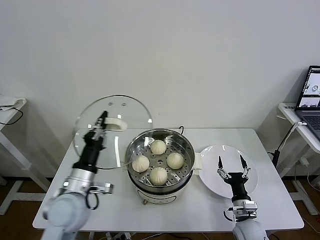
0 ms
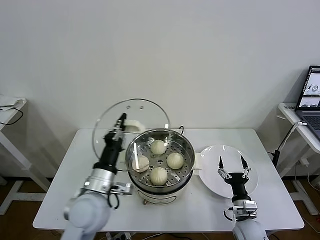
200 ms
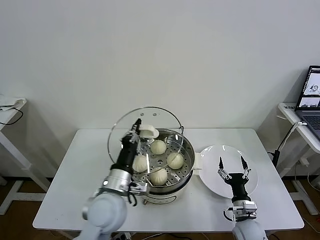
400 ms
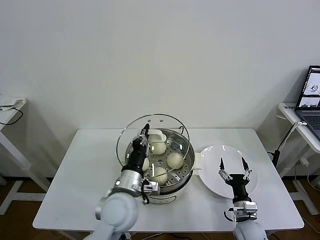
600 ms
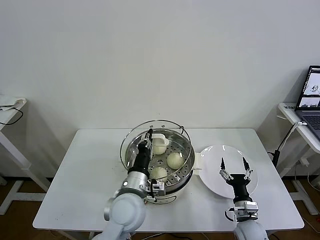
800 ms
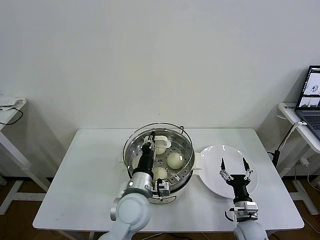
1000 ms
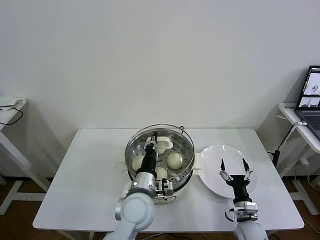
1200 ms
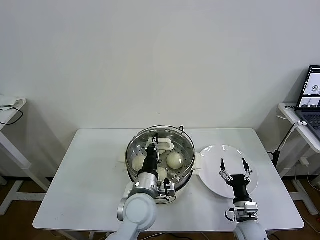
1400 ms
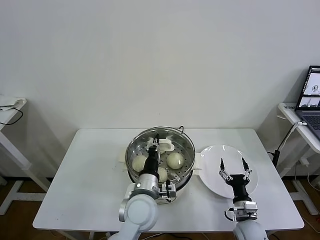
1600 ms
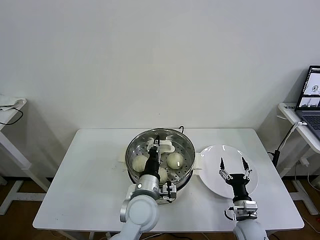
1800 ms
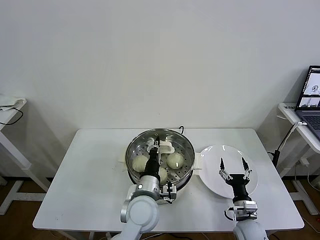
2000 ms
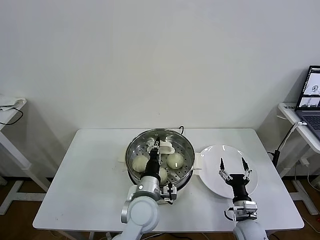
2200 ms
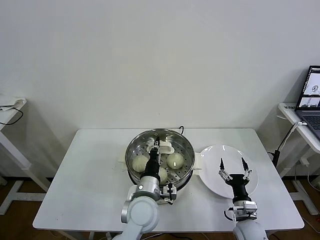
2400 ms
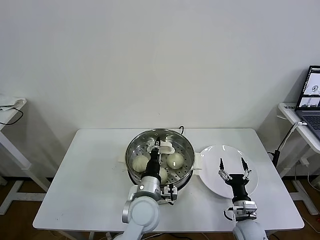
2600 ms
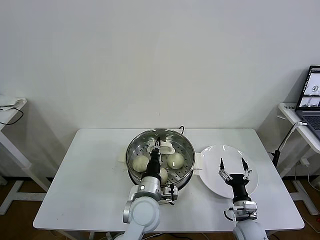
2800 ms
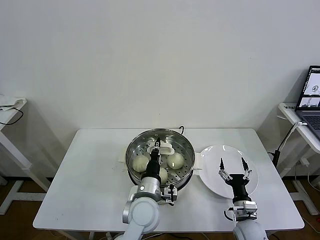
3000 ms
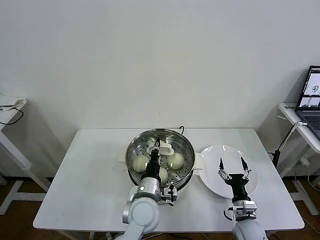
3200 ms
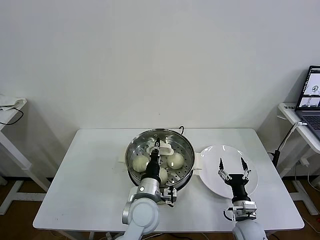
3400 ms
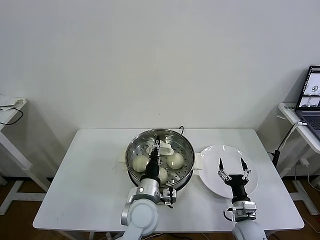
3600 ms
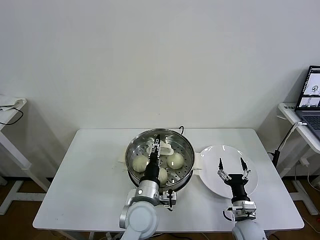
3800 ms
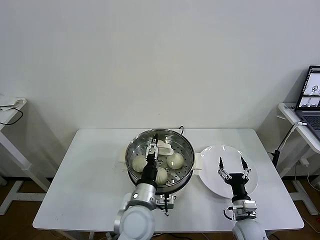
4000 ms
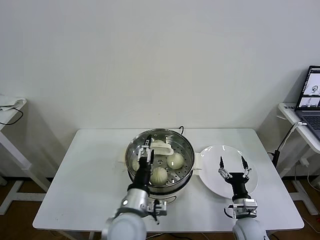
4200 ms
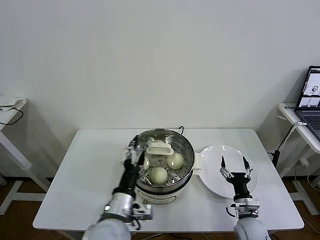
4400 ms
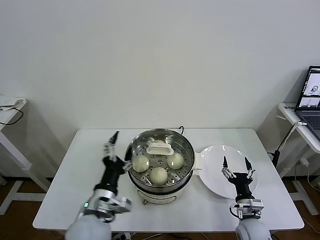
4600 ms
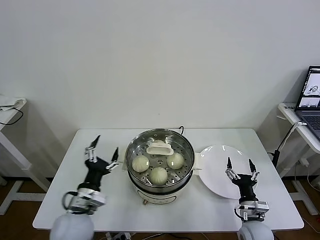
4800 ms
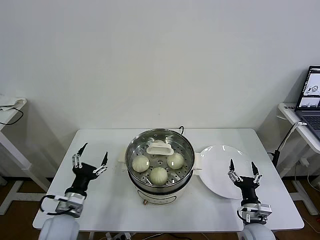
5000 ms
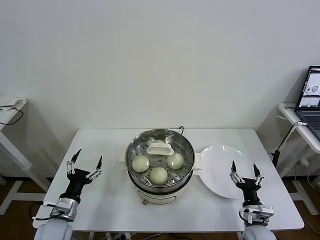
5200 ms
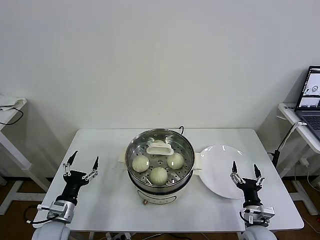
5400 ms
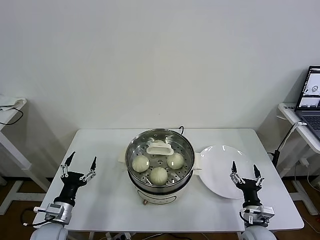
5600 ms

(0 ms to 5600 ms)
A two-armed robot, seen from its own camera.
Task of the whole recording: take steamed baozi put them in steamer then cover it.
Step, 0 ms - 3600 ms: Place the pot lid on the steamer with left gripper.
0 ms - 1400 ms: The left gripper is displaced to the right by some 20 cm.
1400 ms - 2800 ms: There are only small adjustments of the grippers.
2800 ms - 4200 ms: The left gripper changes place by approximately 5 cm, and opens its fingers.
4200 ms - 5600 ms: The left gripper shifts about 25 cm to the left.

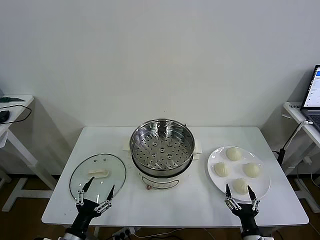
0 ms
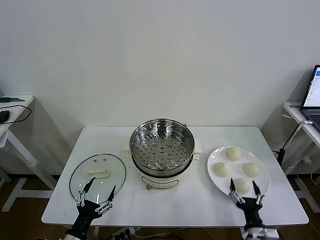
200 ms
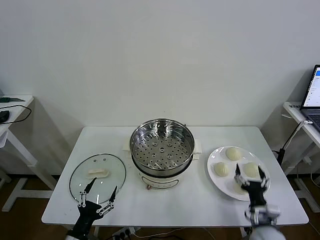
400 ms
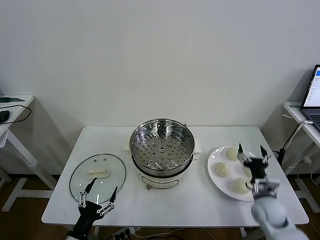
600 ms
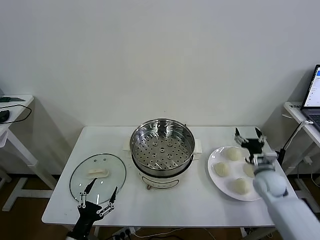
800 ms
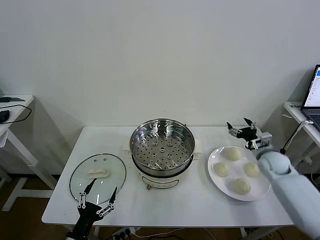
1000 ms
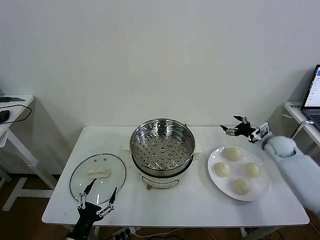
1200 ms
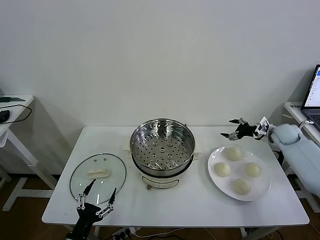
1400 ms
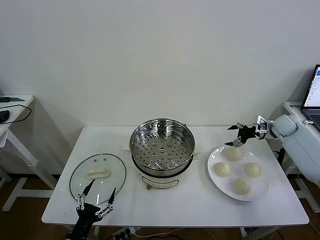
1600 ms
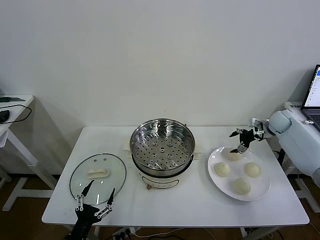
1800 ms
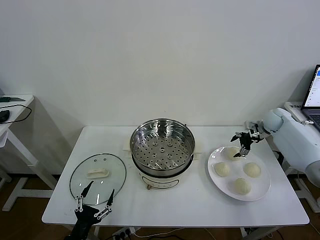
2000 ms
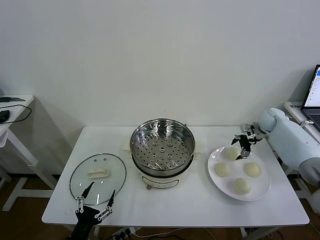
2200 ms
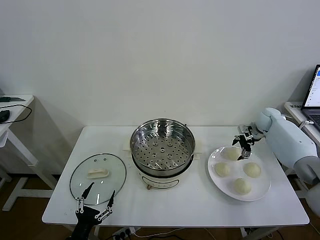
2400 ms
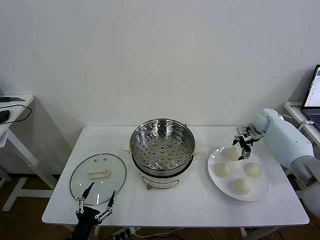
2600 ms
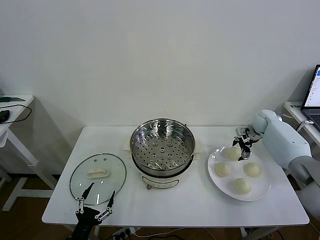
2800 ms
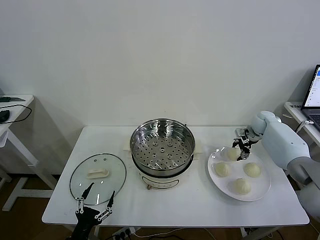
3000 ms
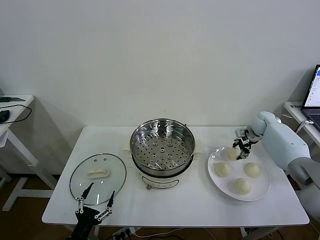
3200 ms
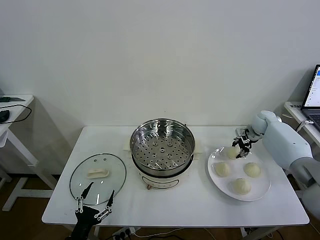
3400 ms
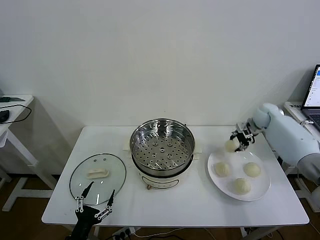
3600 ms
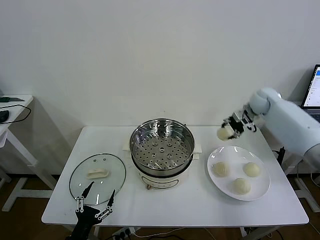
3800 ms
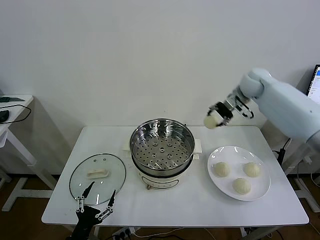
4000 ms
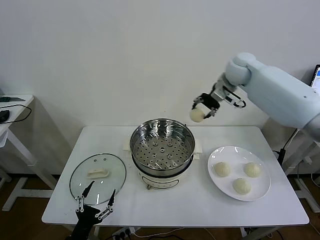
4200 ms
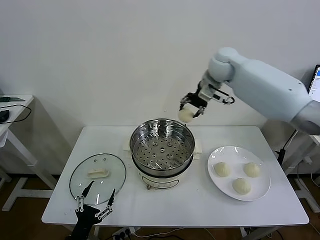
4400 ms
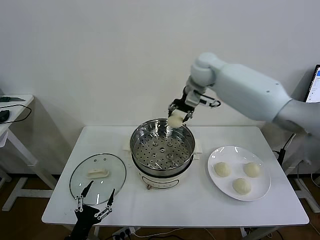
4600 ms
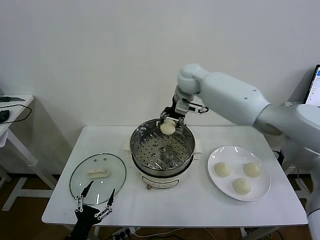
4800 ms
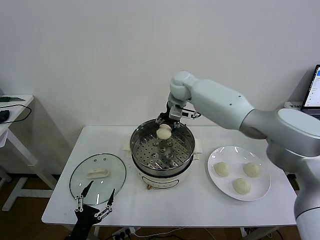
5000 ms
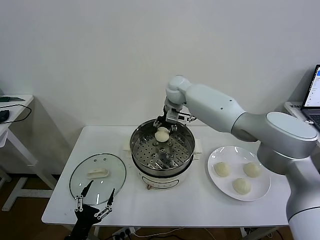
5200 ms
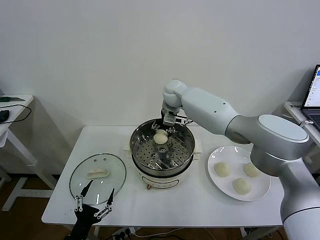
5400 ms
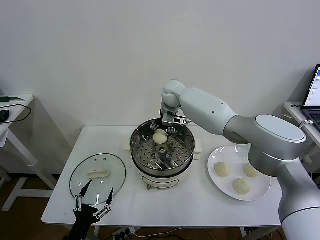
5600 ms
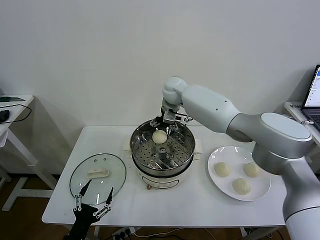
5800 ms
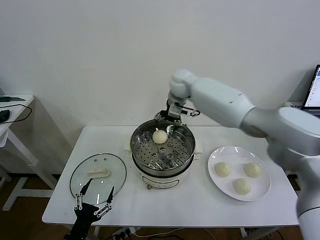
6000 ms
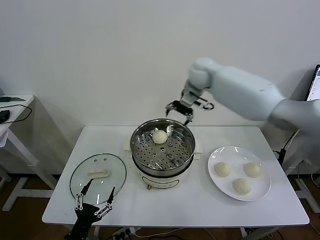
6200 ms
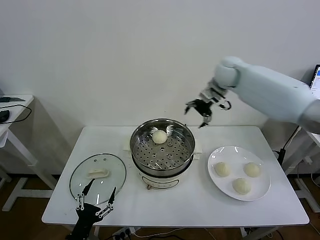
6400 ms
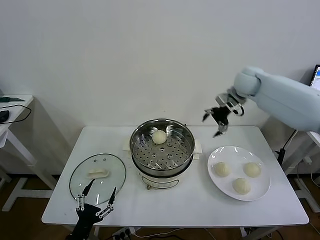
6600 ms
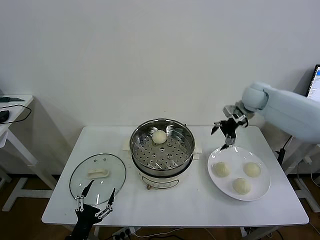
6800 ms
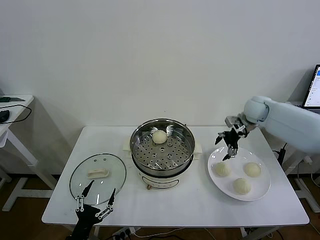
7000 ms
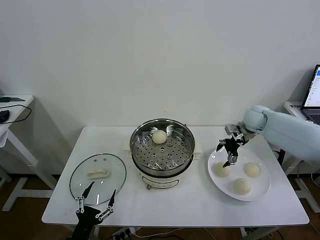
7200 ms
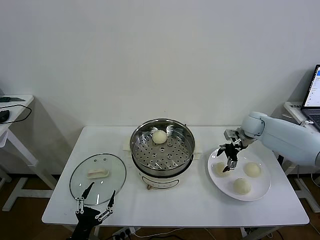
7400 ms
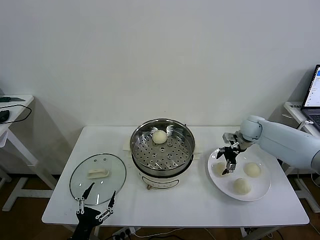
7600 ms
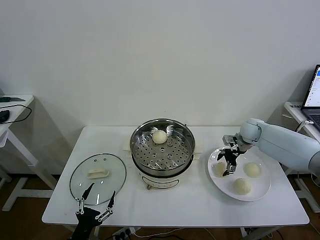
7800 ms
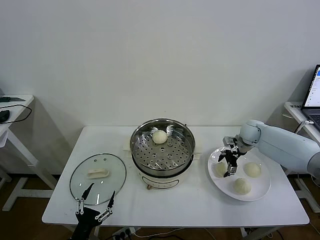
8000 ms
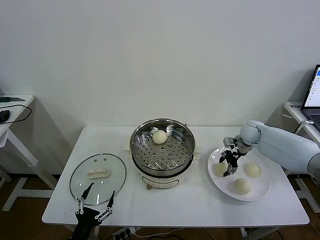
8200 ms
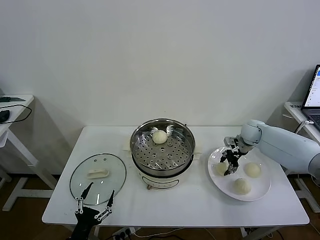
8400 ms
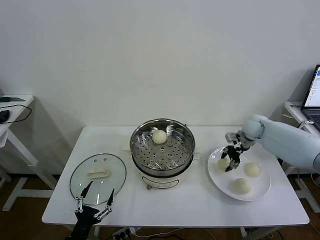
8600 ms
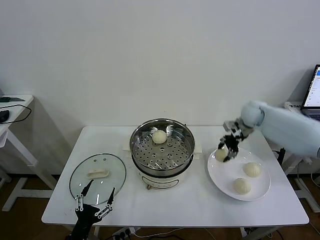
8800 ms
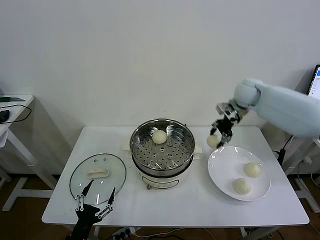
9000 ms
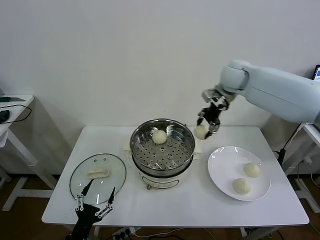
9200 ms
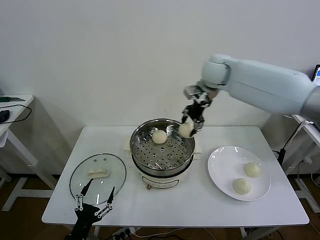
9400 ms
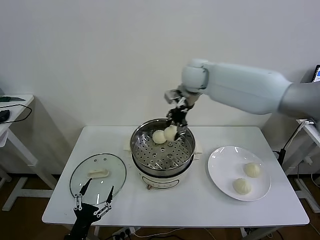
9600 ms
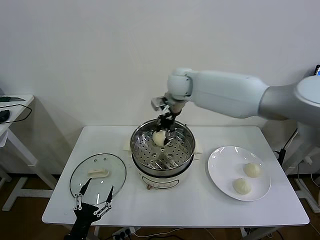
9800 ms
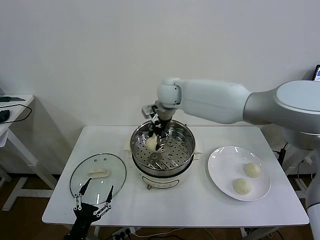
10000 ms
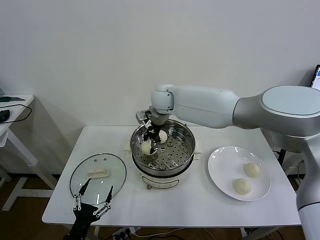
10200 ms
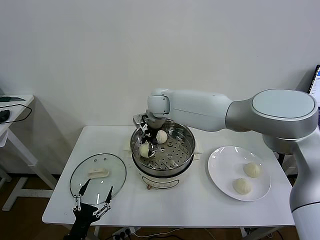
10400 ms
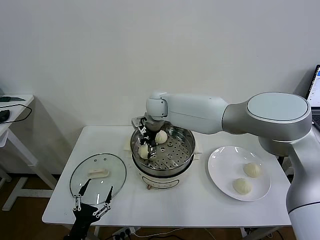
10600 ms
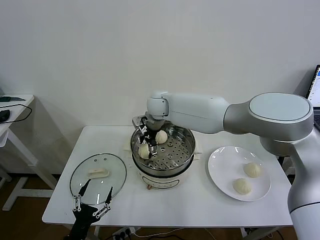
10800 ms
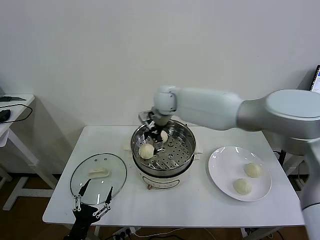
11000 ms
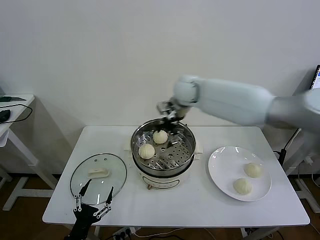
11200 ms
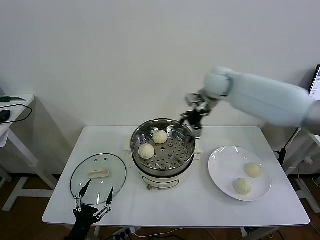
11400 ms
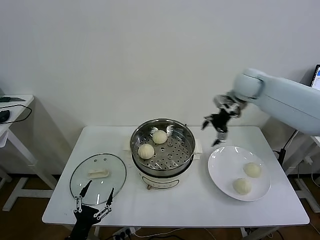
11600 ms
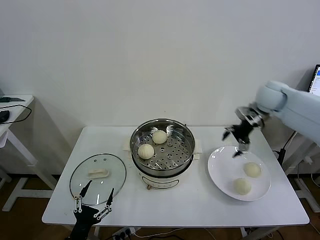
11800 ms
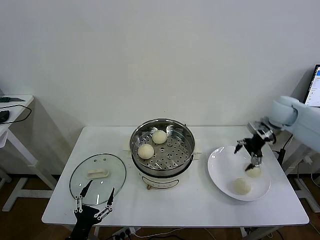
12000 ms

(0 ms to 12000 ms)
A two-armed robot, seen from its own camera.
Task of the whole recording: take steamed baozi put them in steamer then cover it.
Step, 0 ms - 3000 ms: Grasp the baozi in the plate with right gripper.
Step, 3200 ms - 5600 ms: Place the baozi on the steamer with right gripper.
Step, 5800 ms - 8200 ms: Grasp the baozi in the plate with right gripper.
Step, 8400 ms - 10800 ms: Place the baozi on the steamer with right gripper.
1600 ms - 3000 ms: The right gripper moves to the left, some 5 cm, and closes up.
3000 ms - 4400 ms: The right gripper shifts some 35 cm to the left and upward.
4400 ms - 6000 ms: The right gripper opens.
6000 ms - 7600 ms: The right gripper travels to the right and downward by roughly 30 cm.
7600 ms - 9000 ms: The right gripper moves upward and to the left, roughly 20 cm, and closes its fingers.
9000 ms - 10400 ms: The right gripper travels to the left by about 30 cm.
10400 ms - 12000 ms: The right gripper heads to the right, covering some 40 cm, and opens.

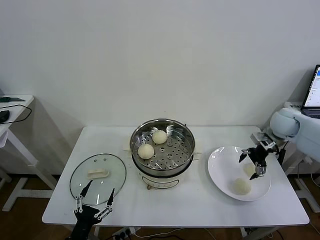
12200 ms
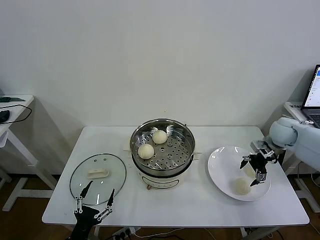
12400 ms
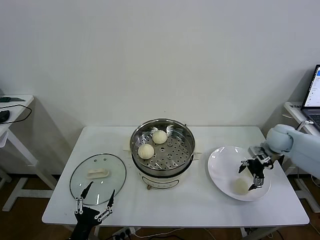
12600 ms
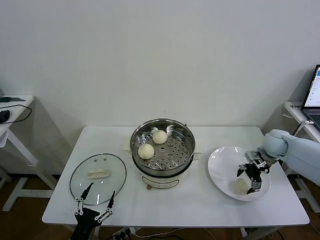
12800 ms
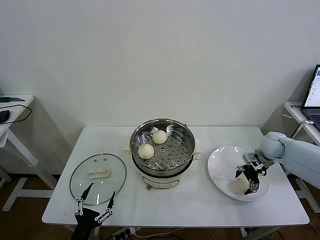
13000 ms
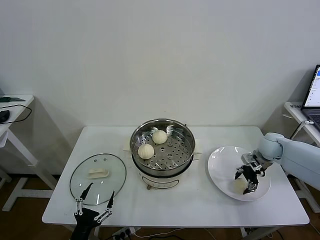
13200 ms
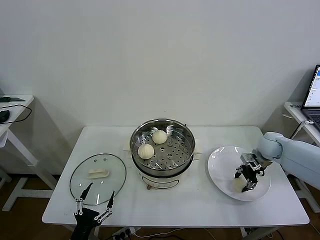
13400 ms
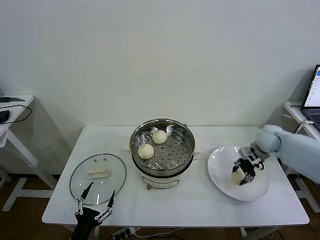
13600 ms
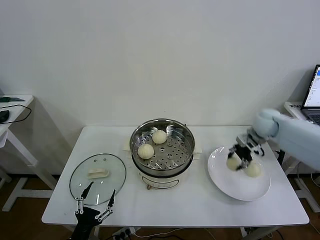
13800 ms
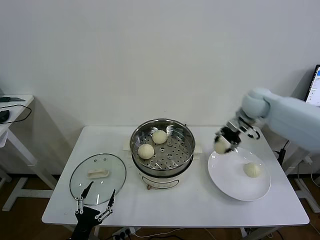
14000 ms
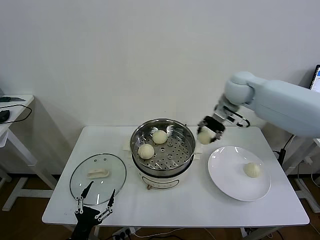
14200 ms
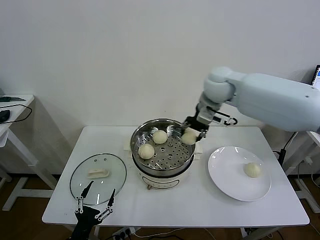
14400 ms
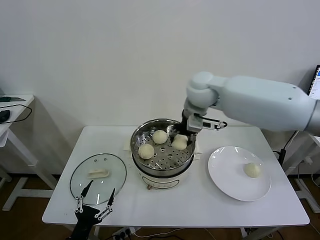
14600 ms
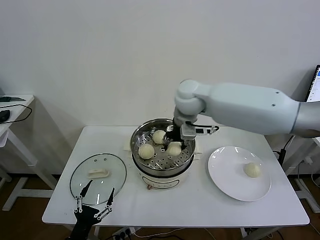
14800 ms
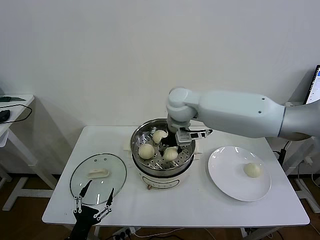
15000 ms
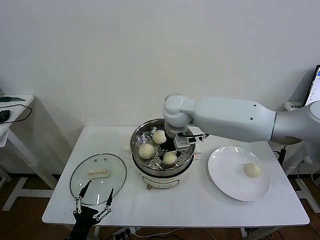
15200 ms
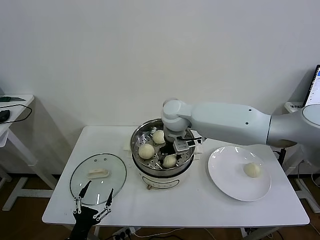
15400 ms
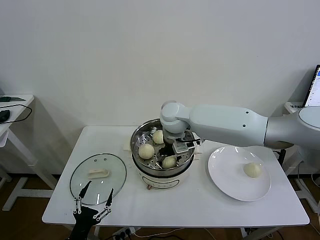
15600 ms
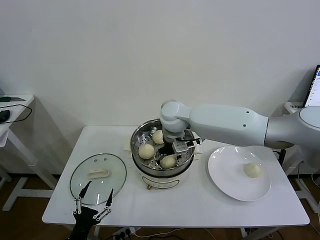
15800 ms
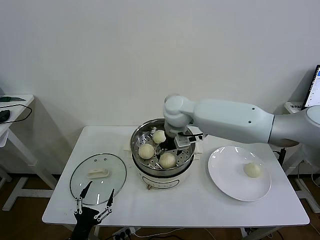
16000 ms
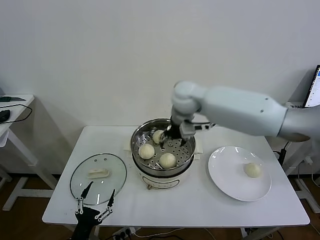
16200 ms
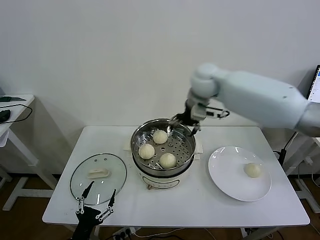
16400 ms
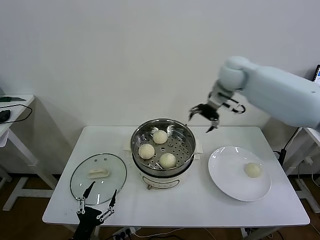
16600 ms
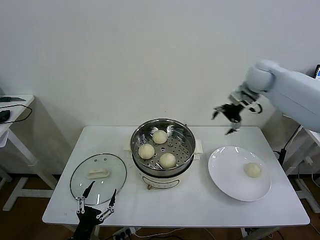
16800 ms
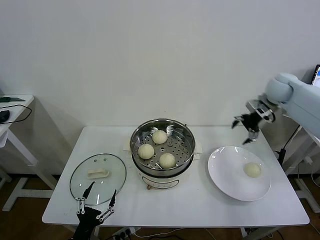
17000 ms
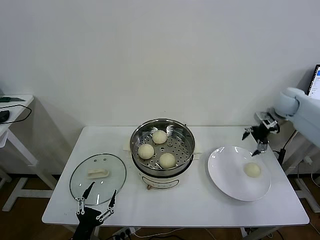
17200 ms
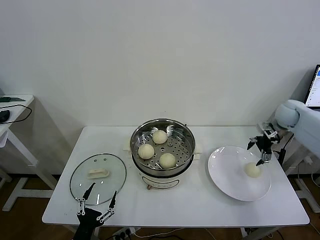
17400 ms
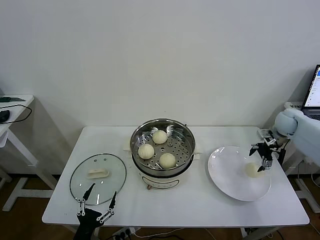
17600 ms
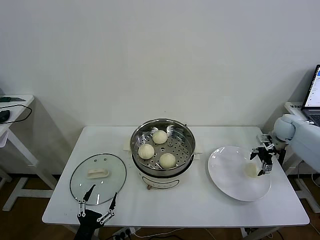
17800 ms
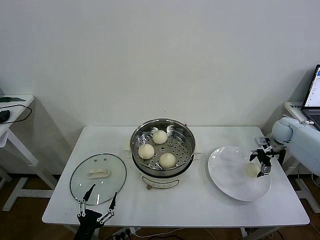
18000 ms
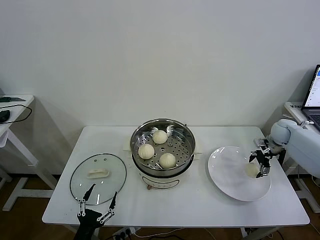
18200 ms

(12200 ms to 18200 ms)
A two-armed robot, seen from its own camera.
Task of the whole recording: take steamed baozi put them in steamer then cover it.
Step, 13400 ms - 15600 ms: Place the baozi on the steamer with right gripper.
12200 ms - 13800 ms: The right gripper moves to the left, roughly 5 cm, travels downward and back again, some 10 cm each way, and closes.
13800 ms - 15200 ms: The right gripper shifts roughly 30 cm to the left.
15200 ms - 16600 ms: The right gripper moves to the right and upward, roughly 25 cm, and opens its fingers.
16600 ms - 18200 ms: The right gripper shifts about 35 cm downward and to the right.
